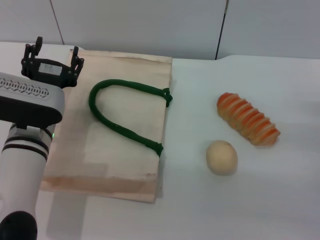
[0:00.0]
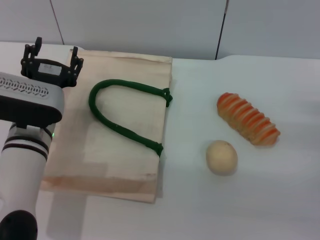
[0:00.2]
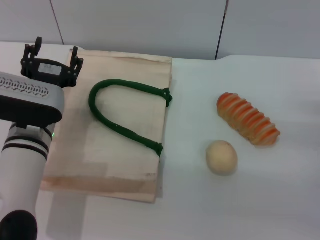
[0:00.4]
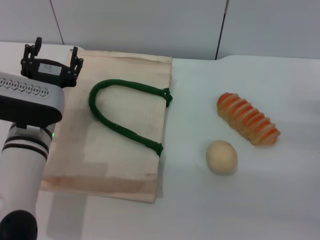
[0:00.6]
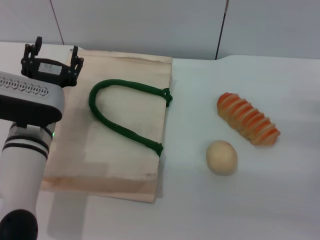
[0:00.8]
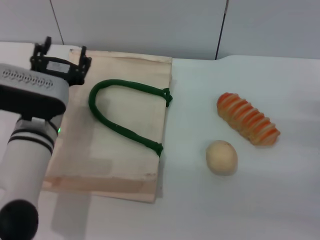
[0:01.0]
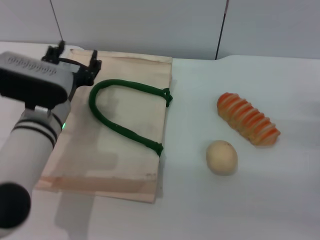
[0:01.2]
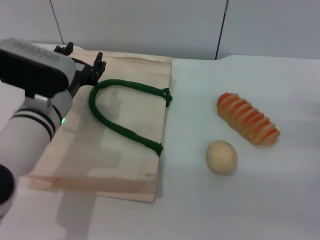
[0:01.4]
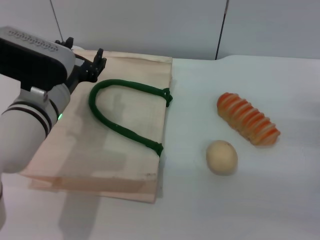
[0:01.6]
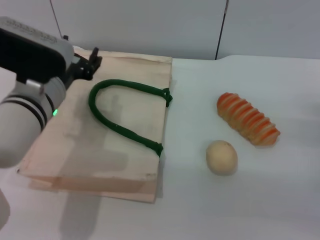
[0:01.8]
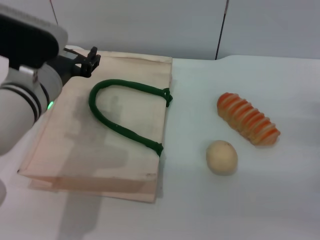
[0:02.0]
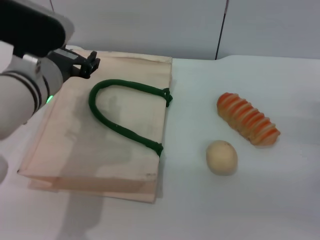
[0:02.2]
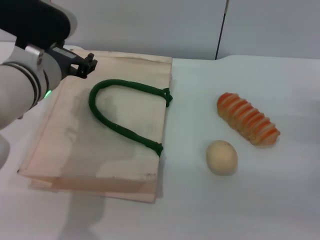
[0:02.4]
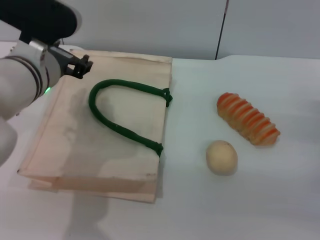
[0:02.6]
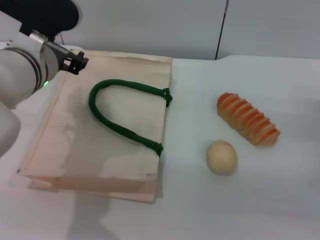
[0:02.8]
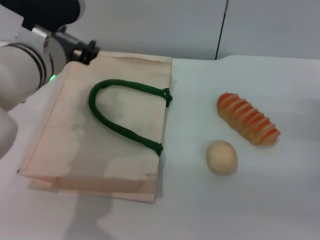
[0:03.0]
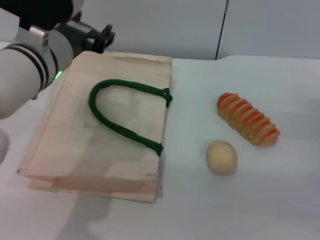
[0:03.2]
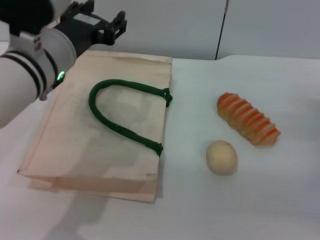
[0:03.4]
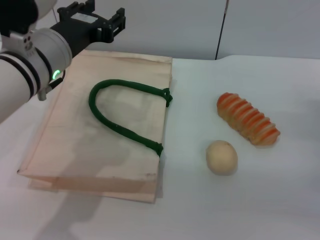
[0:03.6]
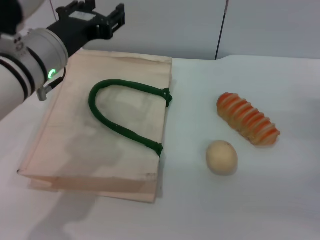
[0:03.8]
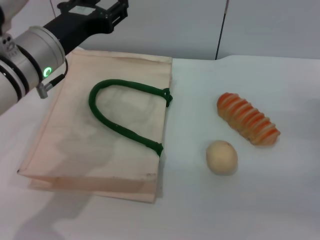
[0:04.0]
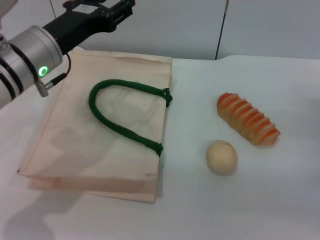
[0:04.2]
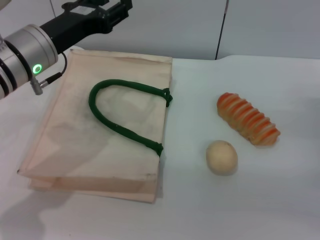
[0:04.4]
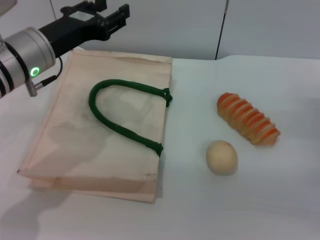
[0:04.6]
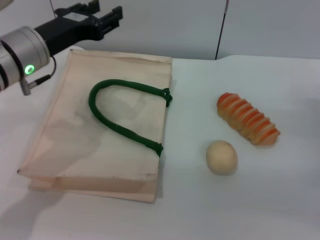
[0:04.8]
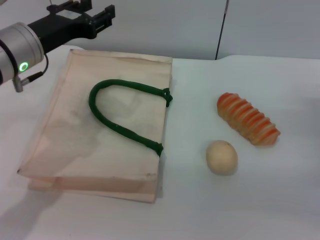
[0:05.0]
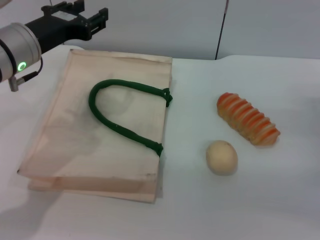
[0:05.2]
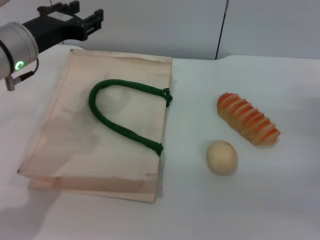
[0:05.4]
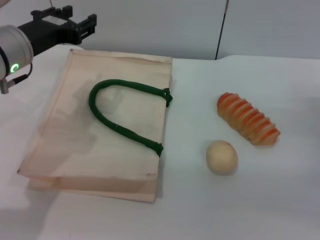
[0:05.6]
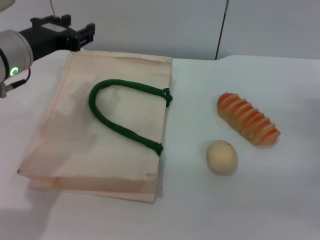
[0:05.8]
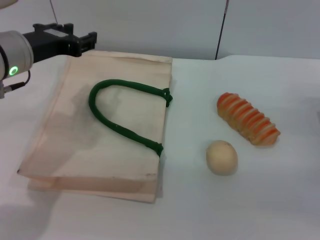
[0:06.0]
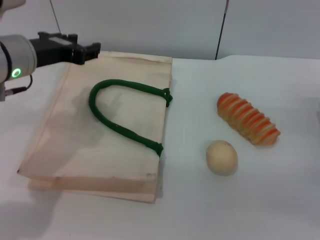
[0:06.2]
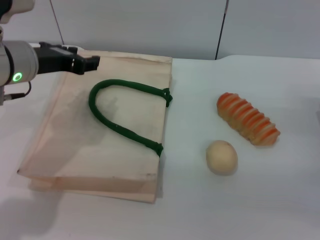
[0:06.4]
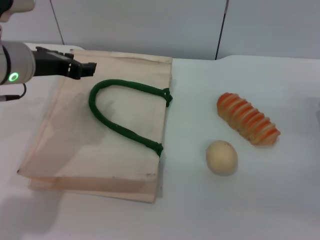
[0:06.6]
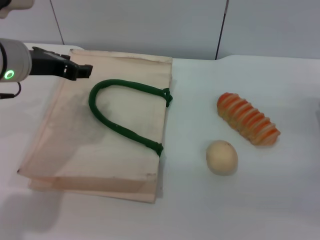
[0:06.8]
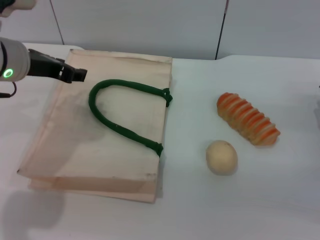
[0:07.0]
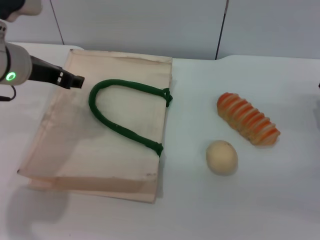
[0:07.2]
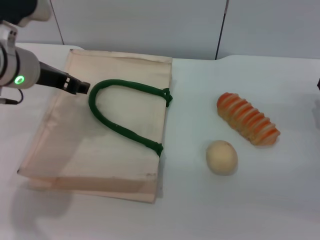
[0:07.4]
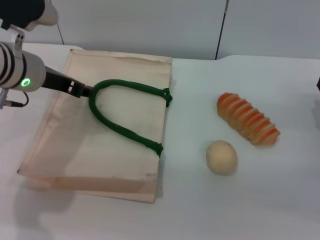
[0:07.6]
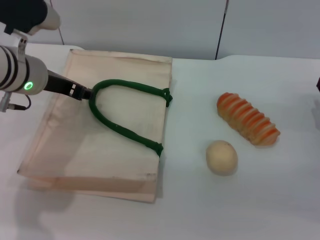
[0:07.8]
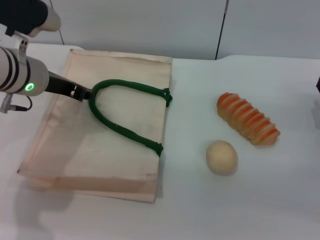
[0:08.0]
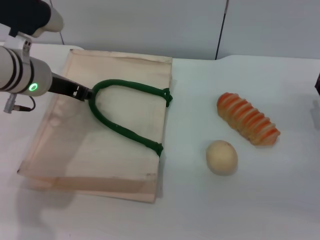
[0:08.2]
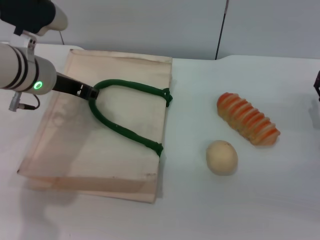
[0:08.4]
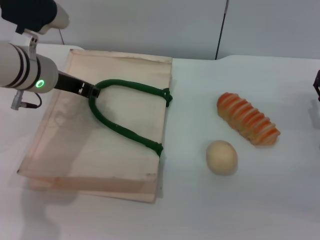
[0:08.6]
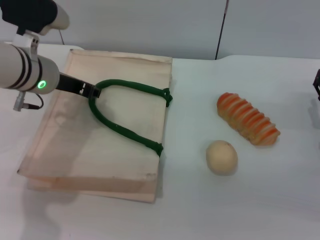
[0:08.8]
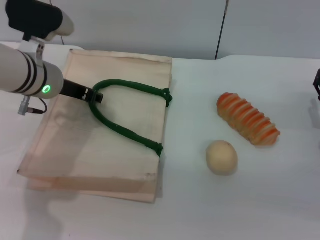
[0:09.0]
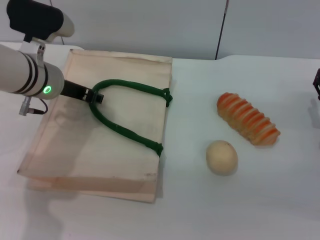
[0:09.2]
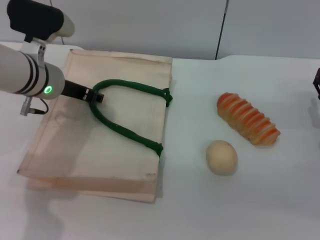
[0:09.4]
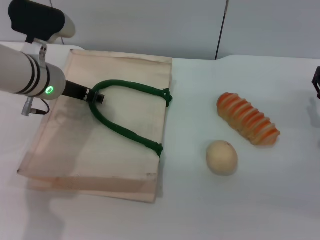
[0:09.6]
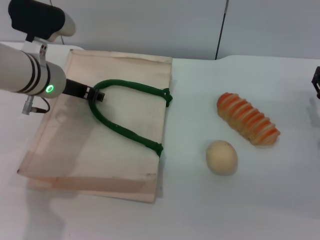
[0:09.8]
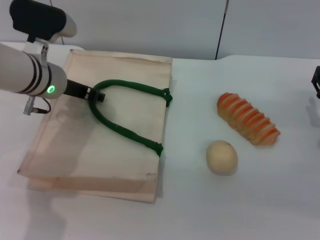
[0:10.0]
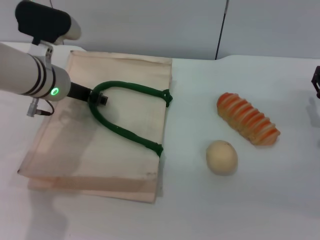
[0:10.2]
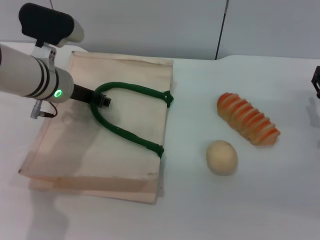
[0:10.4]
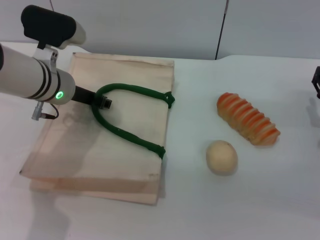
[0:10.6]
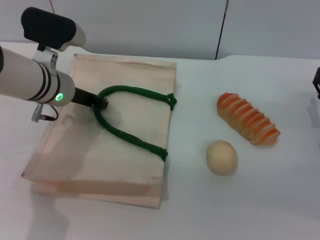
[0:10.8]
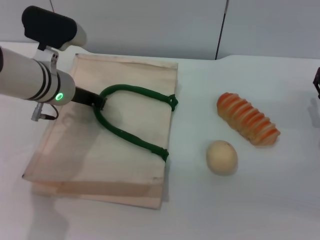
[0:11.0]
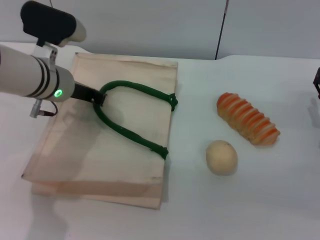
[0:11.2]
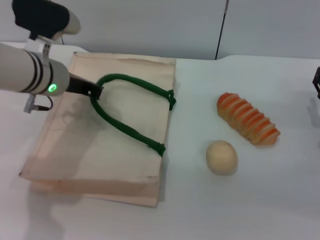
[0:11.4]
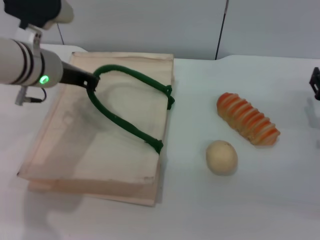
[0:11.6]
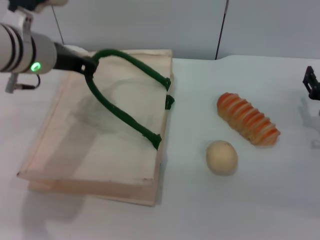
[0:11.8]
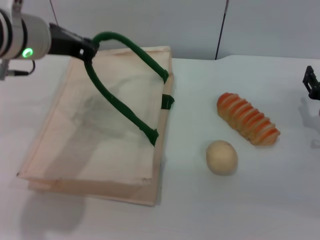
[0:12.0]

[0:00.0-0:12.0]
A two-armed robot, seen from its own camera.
Task of the whole recording: pick up the bread and egg yolk pastry from the table and place it in the white handbag.
0:00.0 to 0:01.6: The left gripper shifts about 5 cm upward.
0:01.6 to 0:03.0: The left gripper goes roughly 5 cm upward.
0:07.6 to 0:10.4: The grippers make only small movements.
0:10.4 to 0:12.0: The left gripper goes some 10 cm upward, and closes.

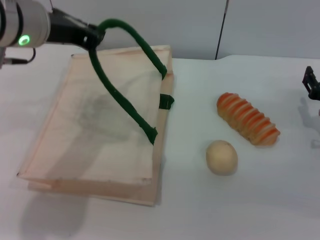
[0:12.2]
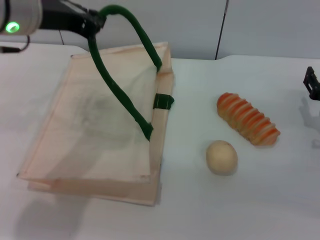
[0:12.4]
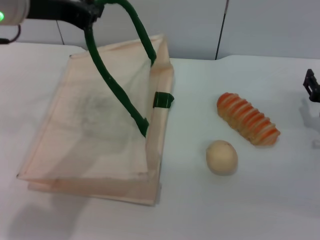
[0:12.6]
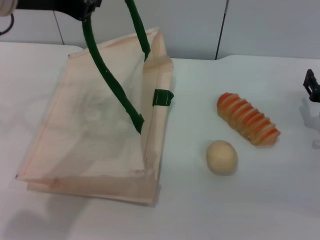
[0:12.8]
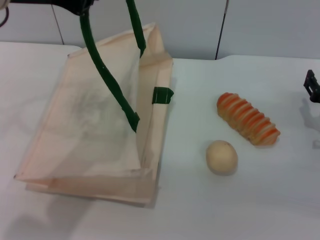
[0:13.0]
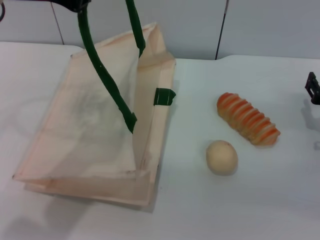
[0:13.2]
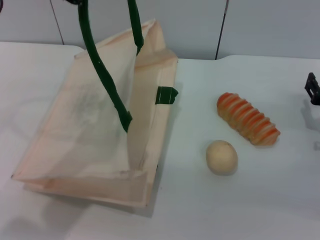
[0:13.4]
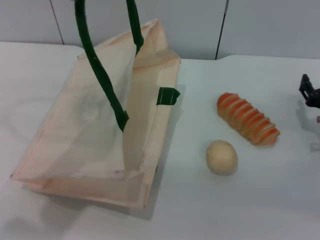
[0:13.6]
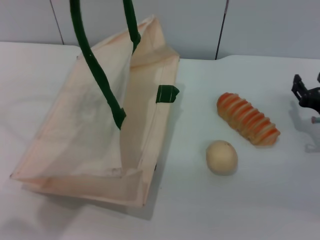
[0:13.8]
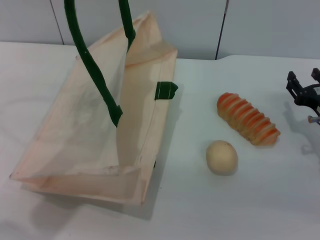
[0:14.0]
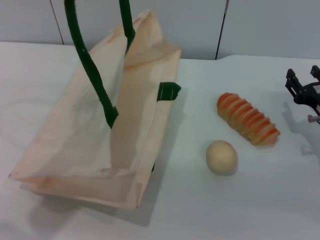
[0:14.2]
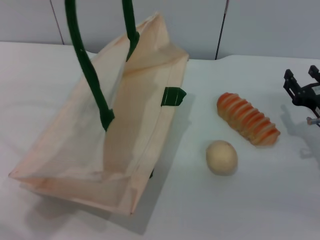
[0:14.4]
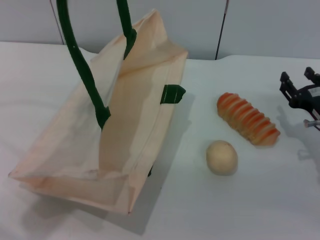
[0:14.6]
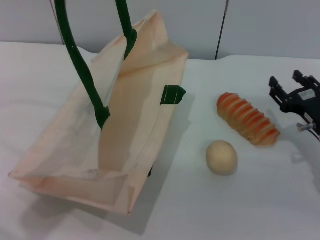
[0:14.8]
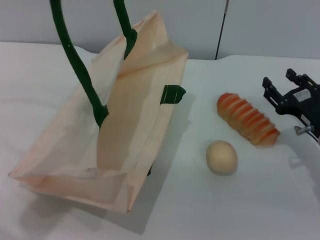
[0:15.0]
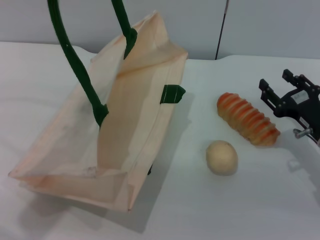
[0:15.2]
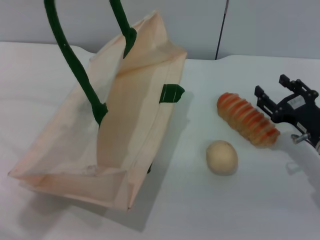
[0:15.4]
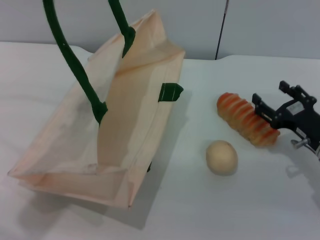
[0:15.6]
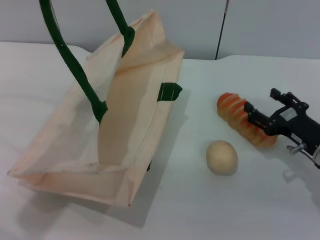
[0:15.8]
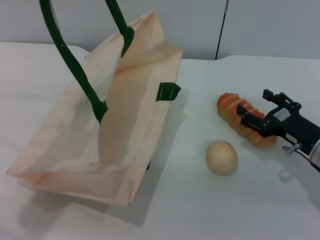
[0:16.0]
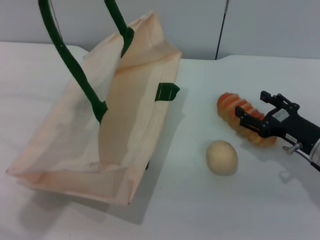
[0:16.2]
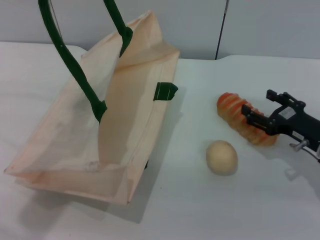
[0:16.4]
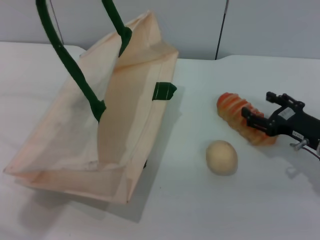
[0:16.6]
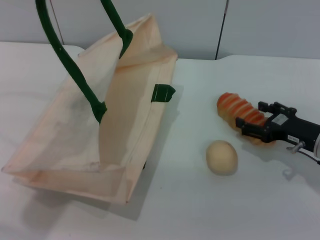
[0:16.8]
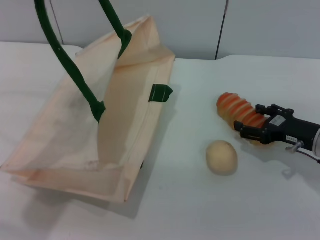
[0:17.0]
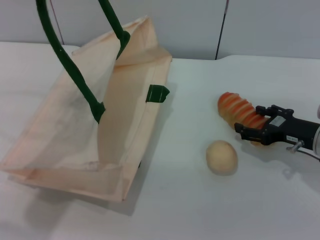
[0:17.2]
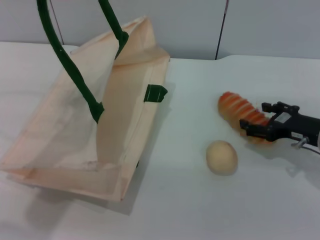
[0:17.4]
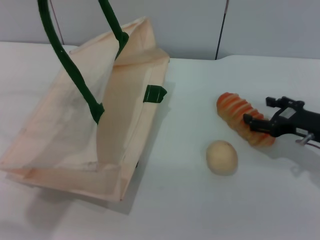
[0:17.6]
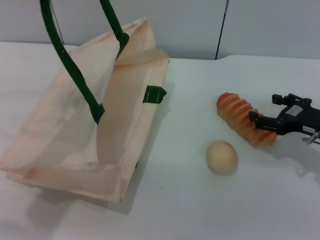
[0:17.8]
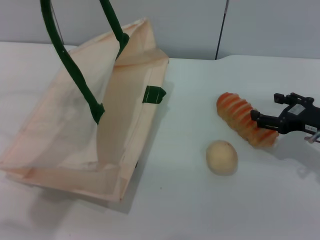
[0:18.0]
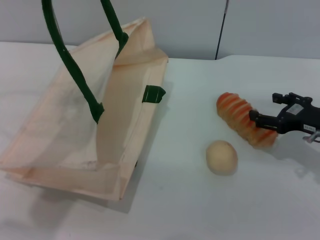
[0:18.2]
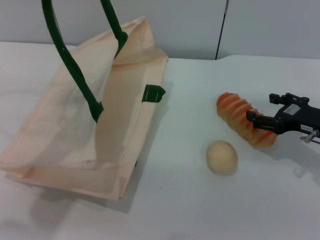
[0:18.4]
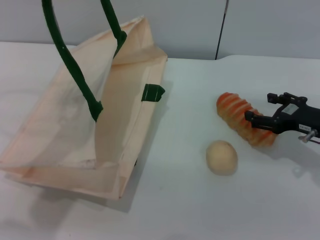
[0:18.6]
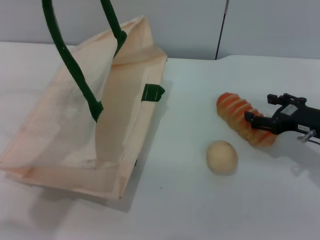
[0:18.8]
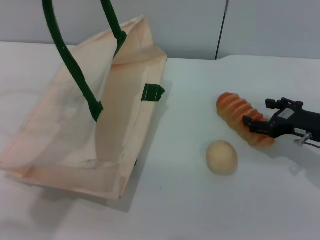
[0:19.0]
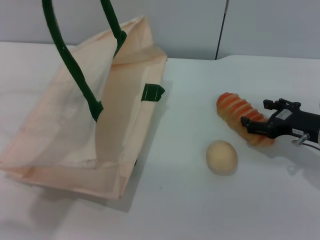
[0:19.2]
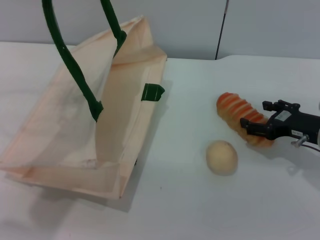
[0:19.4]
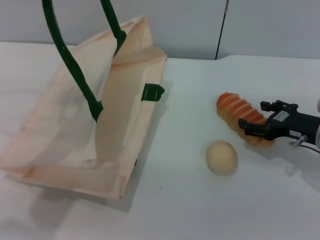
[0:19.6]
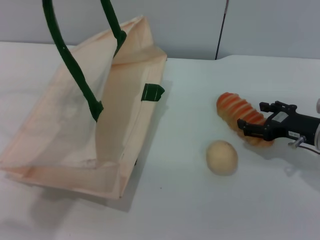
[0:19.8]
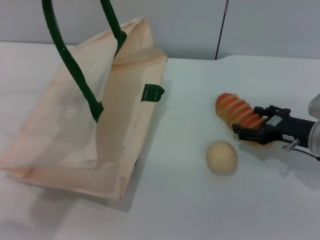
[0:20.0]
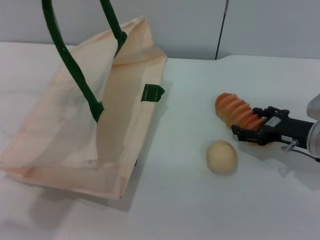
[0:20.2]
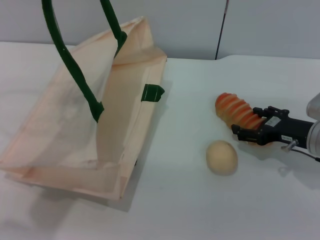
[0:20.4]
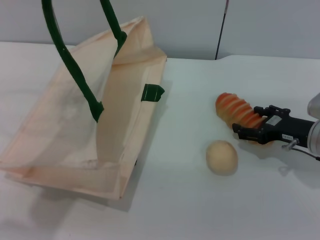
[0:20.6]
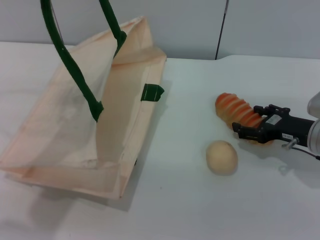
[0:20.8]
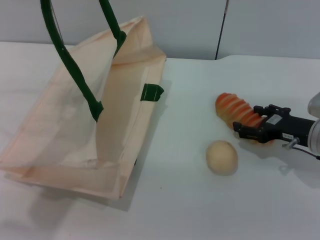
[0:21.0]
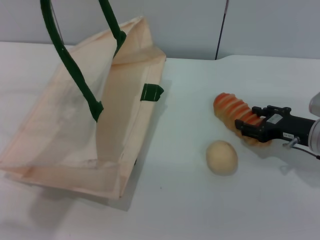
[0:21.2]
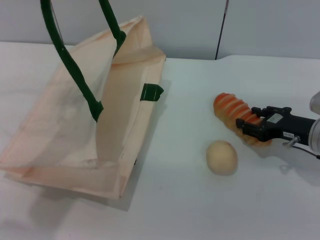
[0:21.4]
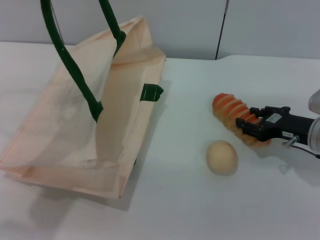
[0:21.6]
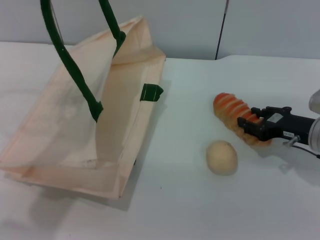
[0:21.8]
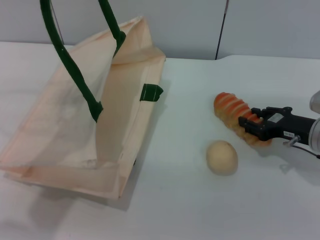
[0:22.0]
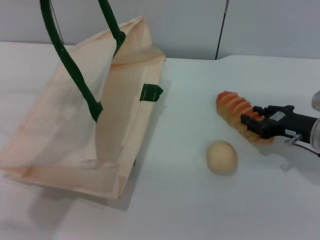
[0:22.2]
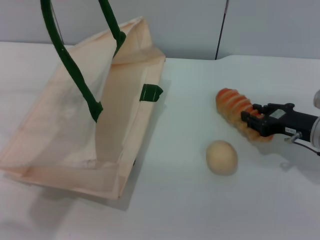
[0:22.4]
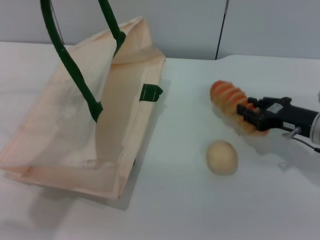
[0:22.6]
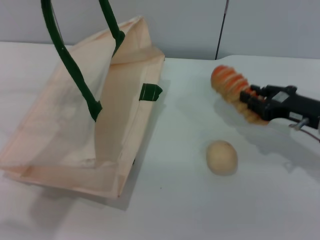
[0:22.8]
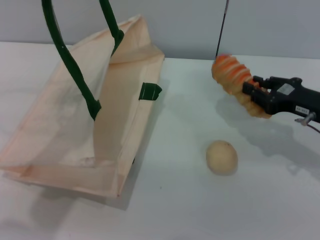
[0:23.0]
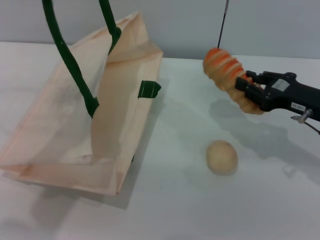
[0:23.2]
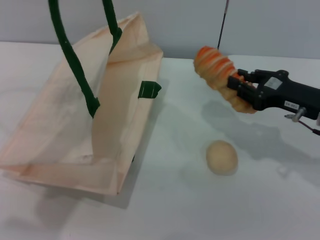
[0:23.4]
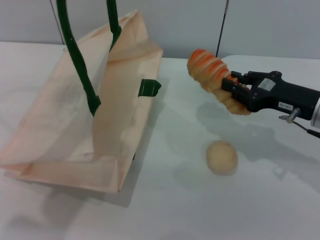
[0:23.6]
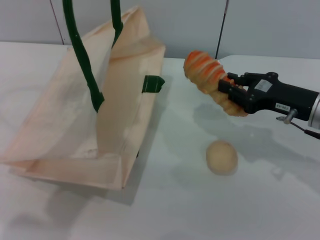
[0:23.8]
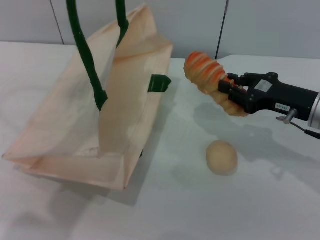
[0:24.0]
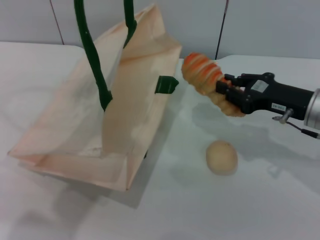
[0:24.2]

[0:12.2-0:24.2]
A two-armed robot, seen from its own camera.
Task of the whole recording: pick up the bread and egg yolk pastry from the table and place it in the white handbag.
Step, 0:13.4 to 0:23.0: Pick up the bread with the right gripper.
0:12.2 to 0:13.8: The left gripper heads upward, covering roughly 10 cm.
0:13.8 to 0:15.2: The grippers make only small movements.
0:15.2 to 0:16.6: The right gripper opens up.
0:16.6 to 0:19.8: The grippers stay close to where they were, moving slightly.
0:19.8 to 0:21.2: Both grippers stay about where they are.
0:21.2 to 0:22.6: The right gripper closes its fingers.
0:22.6 to 0:24.2: The grippers move only a little.
